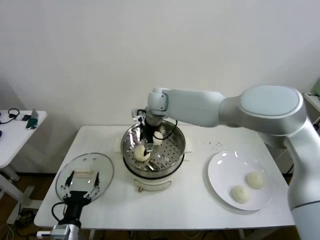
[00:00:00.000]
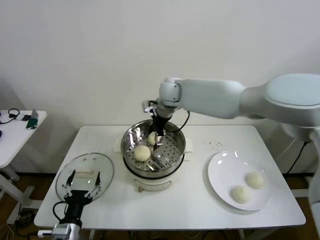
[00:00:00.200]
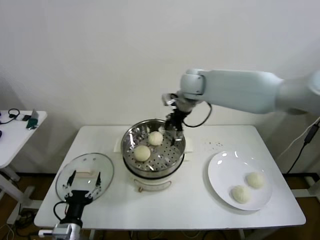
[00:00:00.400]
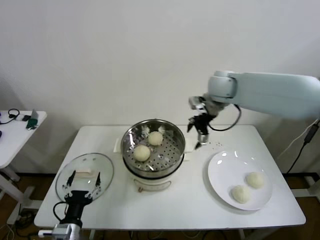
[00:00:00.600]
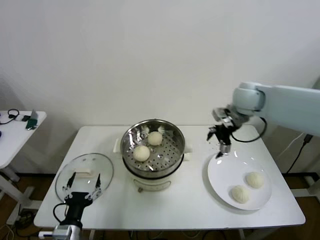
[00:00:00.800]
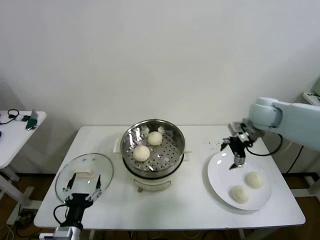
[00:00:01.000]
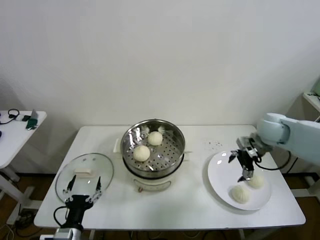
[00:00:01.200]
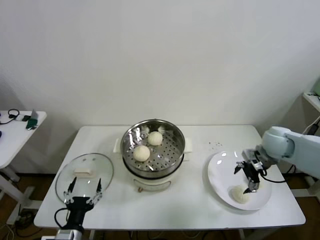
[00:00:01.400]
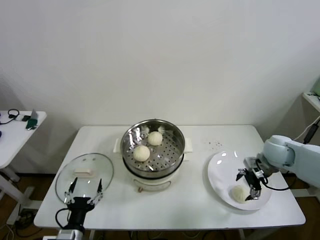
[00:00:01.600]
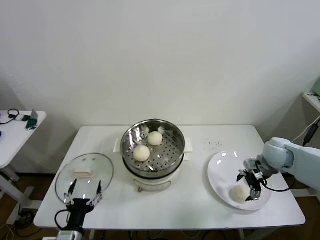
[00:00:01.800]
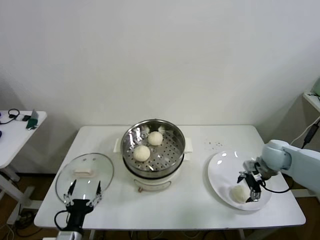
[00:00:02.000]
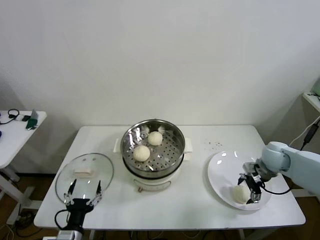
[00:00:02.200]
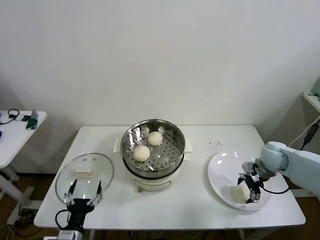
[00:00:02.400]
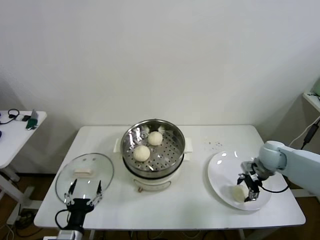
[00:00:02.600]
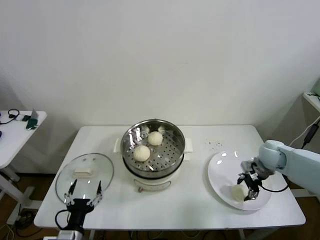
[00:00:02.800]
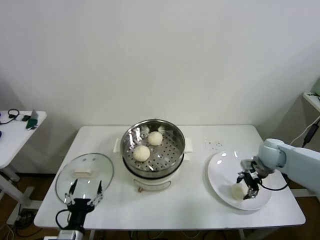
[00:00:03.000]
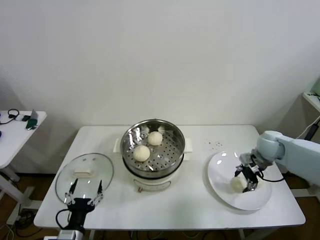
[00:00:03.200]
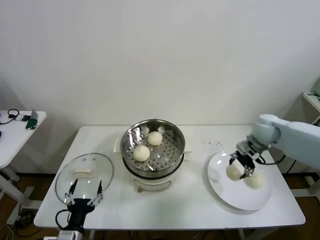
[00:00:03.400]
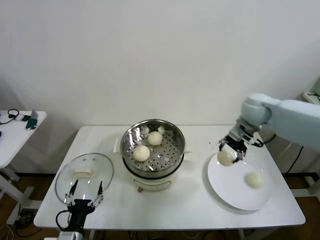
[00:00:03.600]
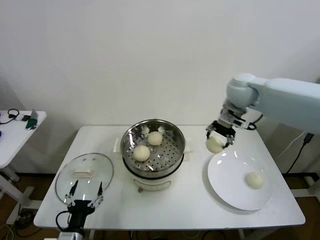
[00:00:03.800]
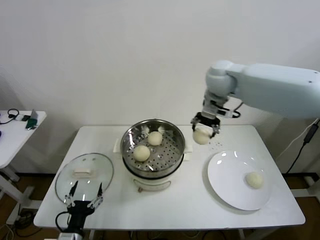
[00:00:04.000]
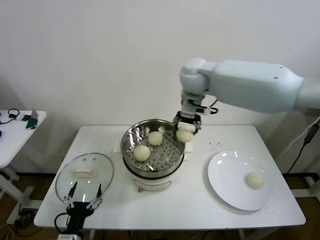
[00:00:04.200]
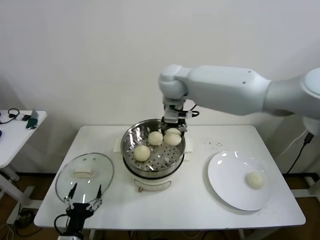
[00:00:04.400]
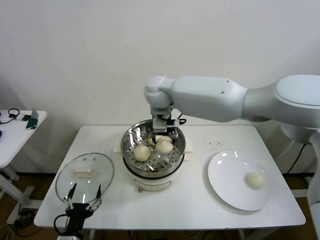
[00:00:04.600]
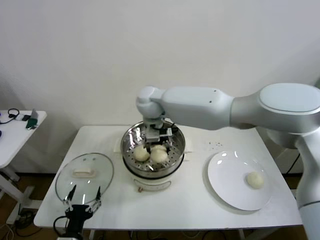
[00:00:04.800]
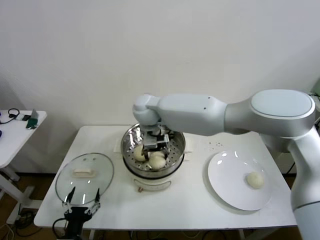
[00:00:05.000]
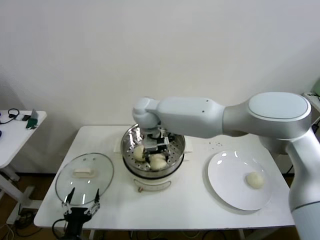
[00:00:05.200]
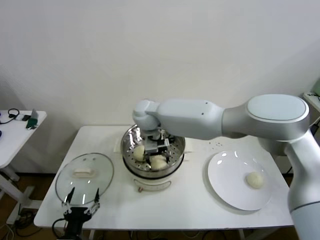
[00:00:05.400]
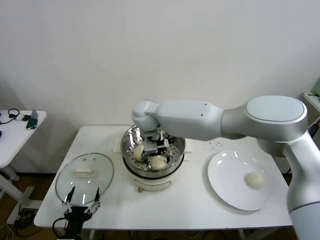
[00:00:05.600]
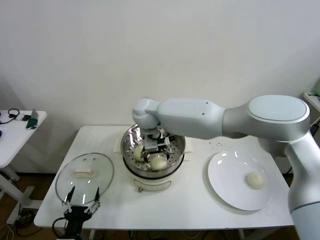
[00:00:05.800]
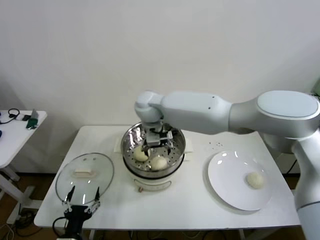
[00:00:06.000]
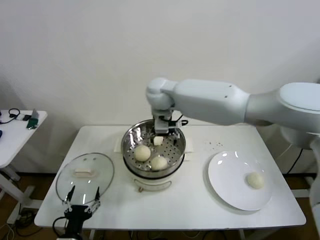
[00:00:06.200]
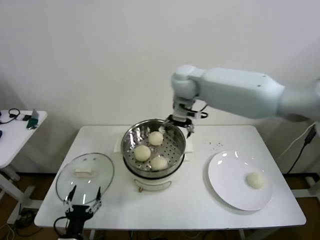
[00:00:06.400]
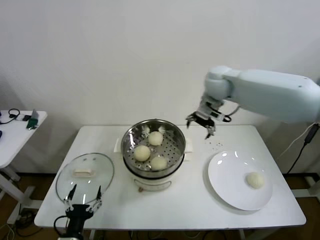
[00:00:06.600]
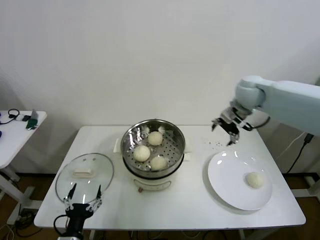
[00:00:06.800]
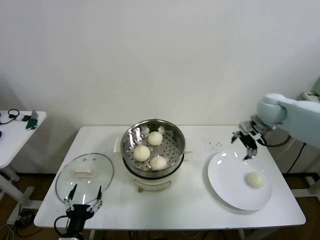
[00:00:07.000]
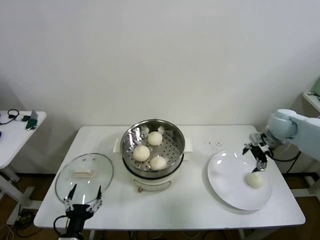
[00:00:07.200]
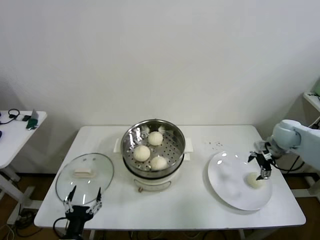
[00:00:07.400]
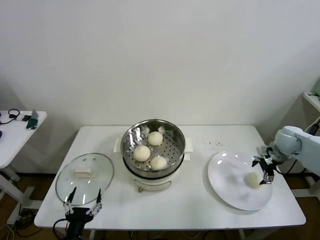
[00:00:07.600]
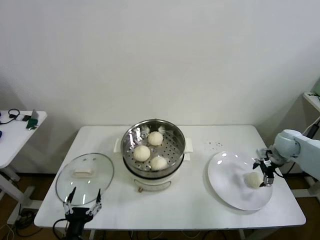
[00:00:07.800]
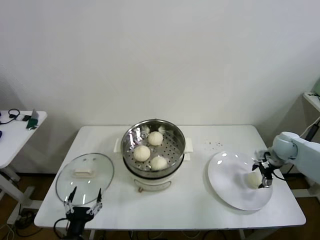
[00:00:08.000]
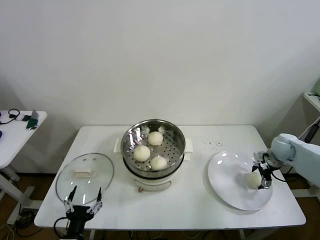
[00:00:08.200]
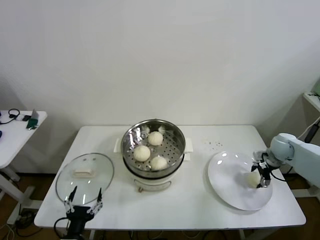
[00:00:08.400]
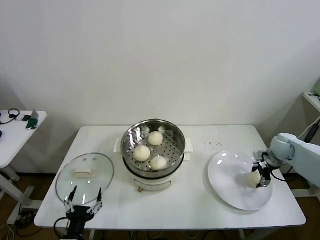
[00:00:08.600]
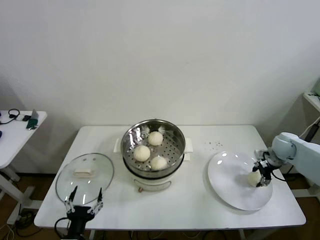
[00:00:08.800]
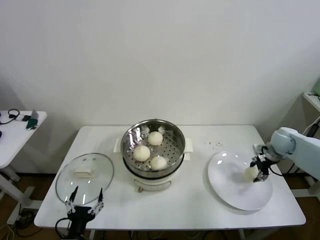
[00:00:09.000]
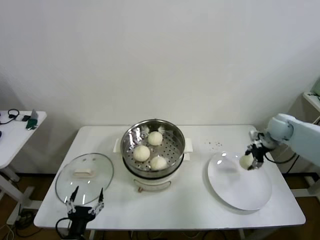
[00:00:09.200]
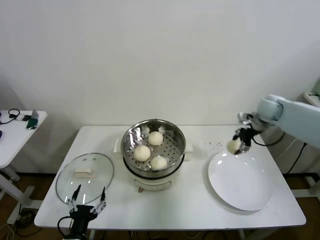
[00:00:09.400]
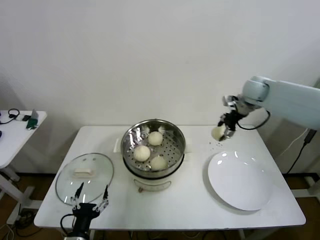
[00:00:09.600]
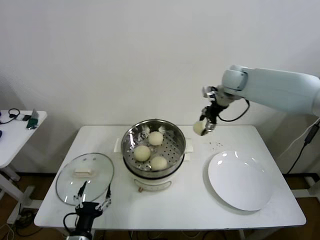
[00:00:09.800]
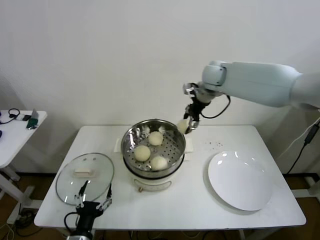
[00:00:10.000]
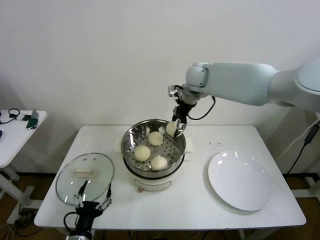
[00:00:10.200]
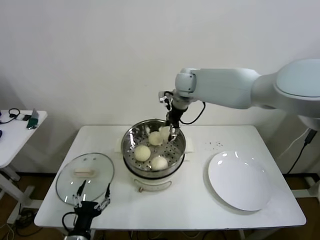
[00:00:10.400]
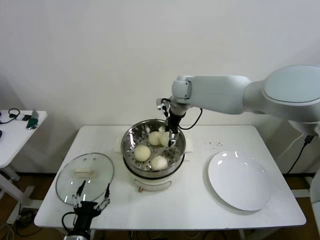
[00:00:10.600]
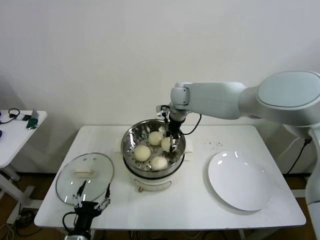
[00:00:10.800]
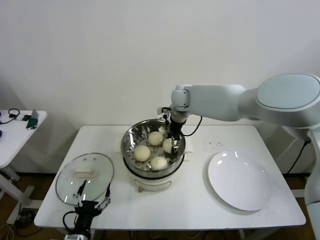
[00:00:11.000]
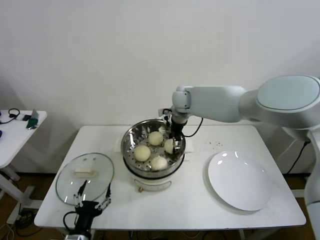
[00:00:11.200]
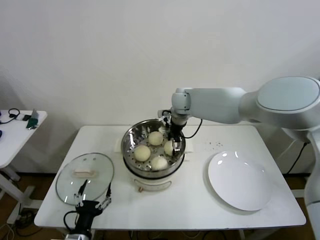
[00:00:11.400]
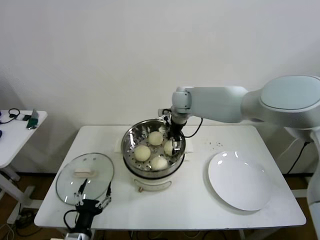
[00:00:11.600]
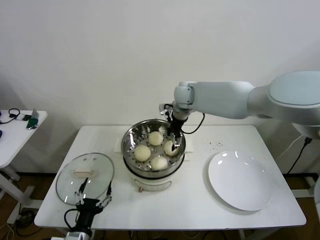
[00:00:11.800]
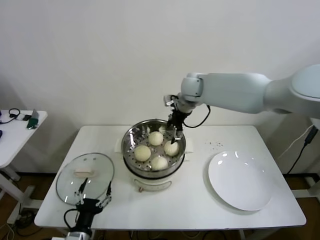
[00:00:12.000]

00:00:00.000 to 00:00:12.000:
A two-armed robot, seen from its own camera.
Step, 00:00:00.000 to 00:00:02.600: Grasp the baozi in the plate with right gripper.
Step, 00:00:03.000 to 00:00:05.400: Place the baozi on the steamer with right gripper.
Step, 00:00:05.800 to 00:00:08.600: Grasp the baozi in the plate with right gripper.
Step, 00:00:08.800 to 00:00:11.400: Place the baozi on the steamer with right gripper.
00:00:00.000 to 00:00:01.600: The right gripper moves to the right, approximately 40 cm.
00:00:01.600 to 00:00:03.000: The right gripper closes up.
00:00:03.000 to 00:00:04.400: The right gripper heads to the left and upward, covering roughly 40 cm.
00:00:04.400 to 00:00:06.000: The right gripper goes about 10 cm downward and to the left, and opens its fingers.
00:00:06.000 to 00:00:07.600: The right gripper shifts some 50 cm to the right.
00:00:07.600 to 00:00:09.000: The right gripper closes up.
00:00:09.000 to 00:00:10.400: The right gripper is displaced to the left and upward by about 40 cm.
00:00:10.400 to 00:00:12.000: The right gripper opens.

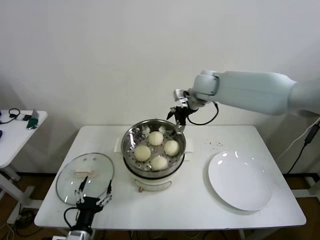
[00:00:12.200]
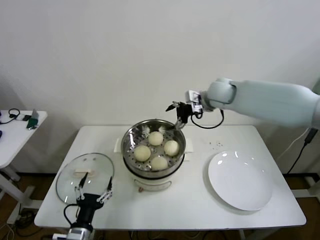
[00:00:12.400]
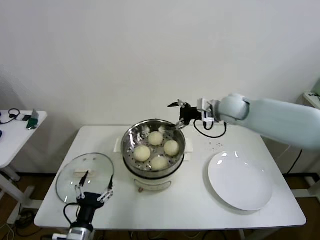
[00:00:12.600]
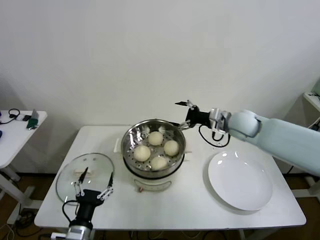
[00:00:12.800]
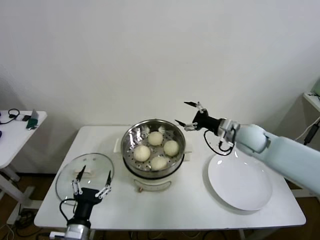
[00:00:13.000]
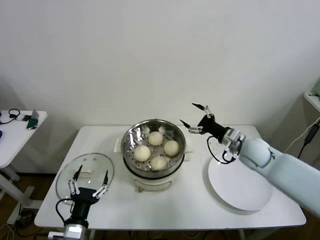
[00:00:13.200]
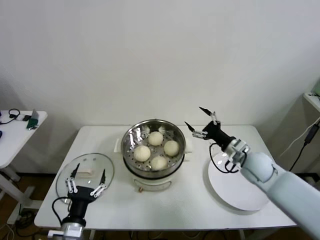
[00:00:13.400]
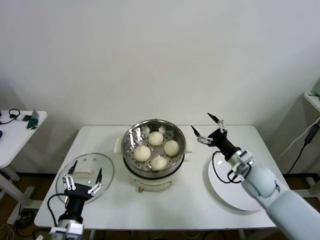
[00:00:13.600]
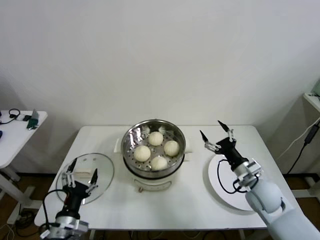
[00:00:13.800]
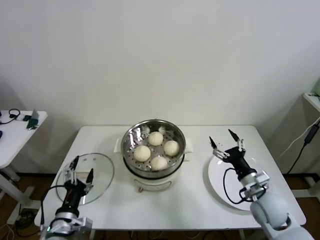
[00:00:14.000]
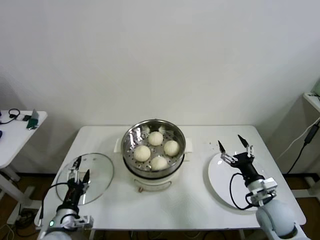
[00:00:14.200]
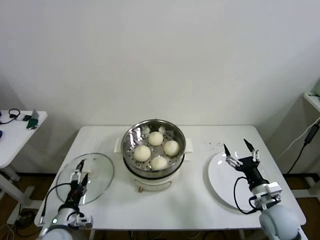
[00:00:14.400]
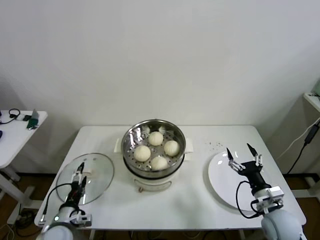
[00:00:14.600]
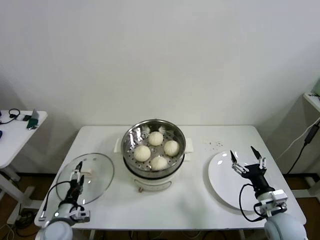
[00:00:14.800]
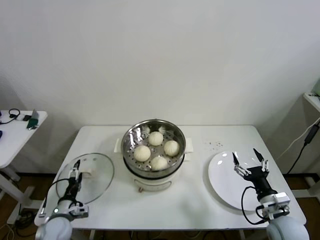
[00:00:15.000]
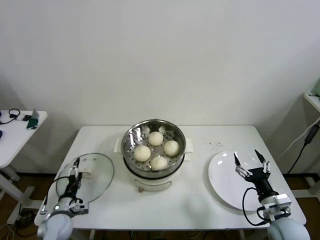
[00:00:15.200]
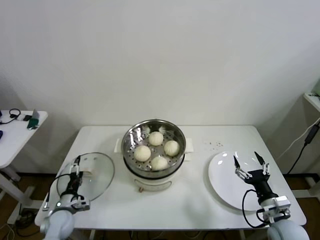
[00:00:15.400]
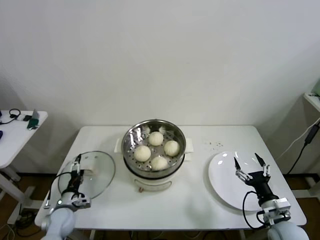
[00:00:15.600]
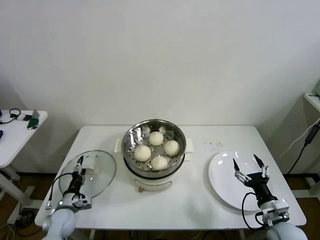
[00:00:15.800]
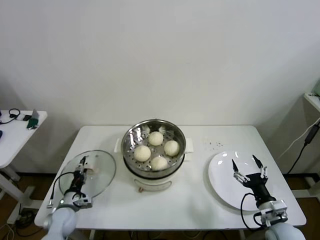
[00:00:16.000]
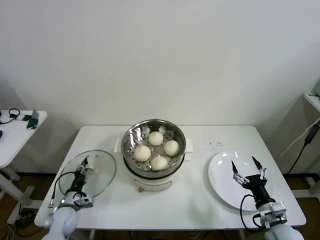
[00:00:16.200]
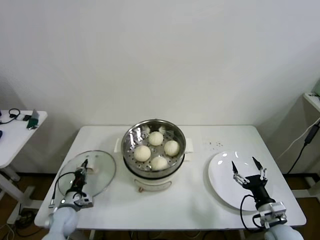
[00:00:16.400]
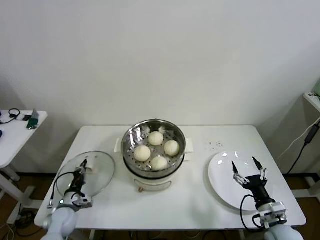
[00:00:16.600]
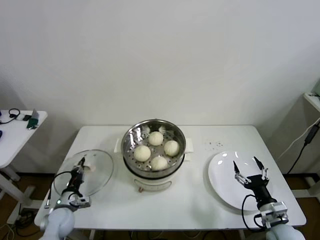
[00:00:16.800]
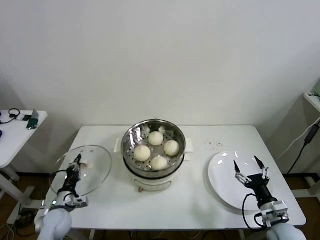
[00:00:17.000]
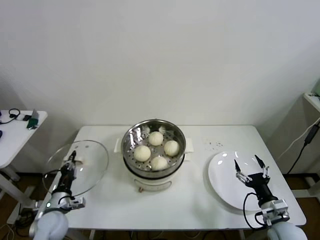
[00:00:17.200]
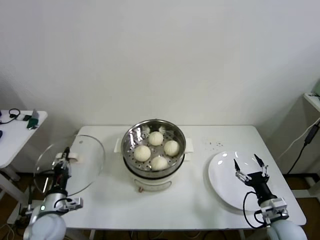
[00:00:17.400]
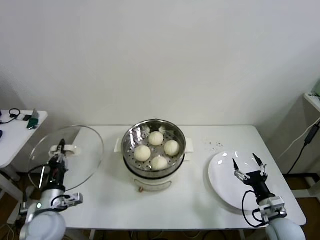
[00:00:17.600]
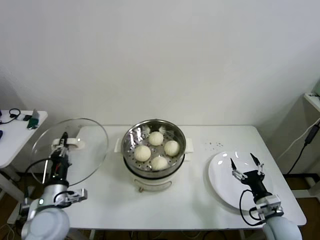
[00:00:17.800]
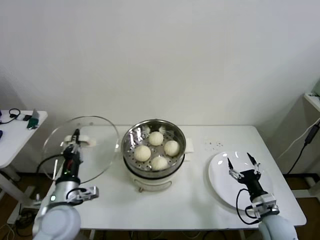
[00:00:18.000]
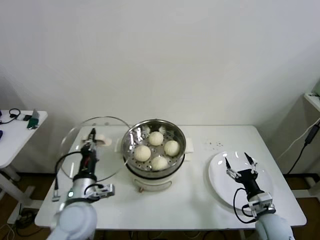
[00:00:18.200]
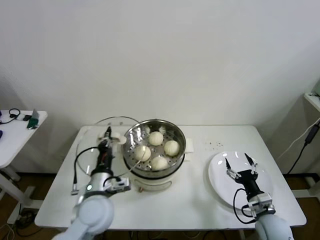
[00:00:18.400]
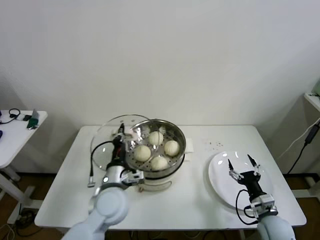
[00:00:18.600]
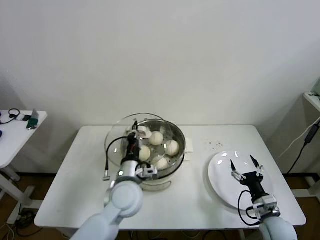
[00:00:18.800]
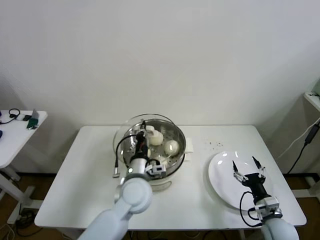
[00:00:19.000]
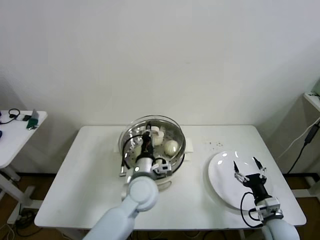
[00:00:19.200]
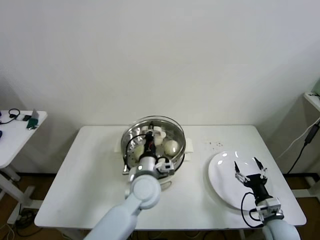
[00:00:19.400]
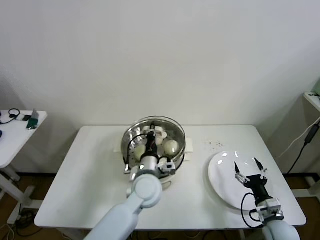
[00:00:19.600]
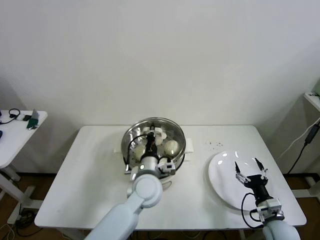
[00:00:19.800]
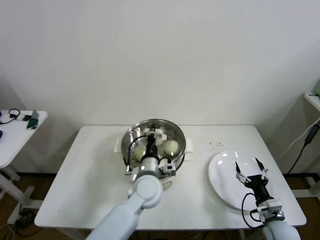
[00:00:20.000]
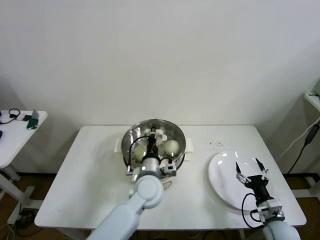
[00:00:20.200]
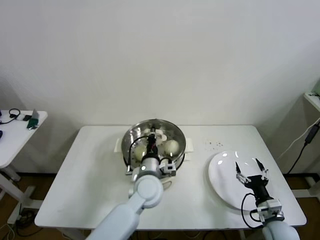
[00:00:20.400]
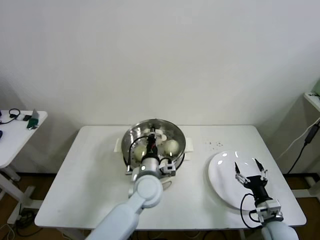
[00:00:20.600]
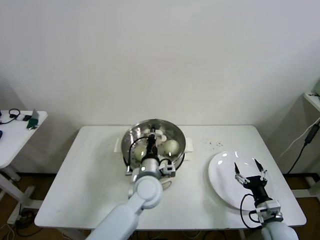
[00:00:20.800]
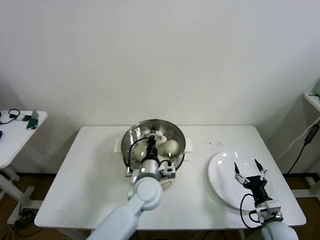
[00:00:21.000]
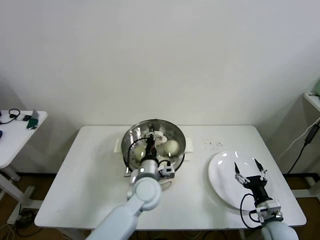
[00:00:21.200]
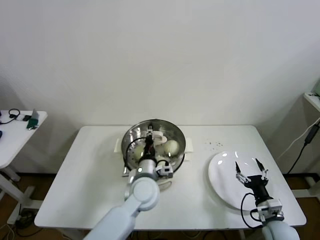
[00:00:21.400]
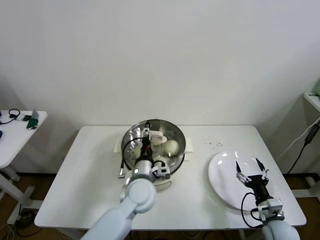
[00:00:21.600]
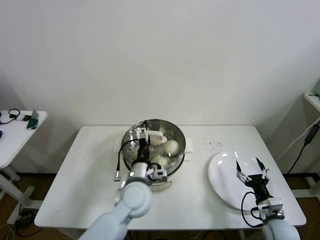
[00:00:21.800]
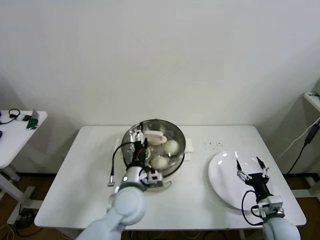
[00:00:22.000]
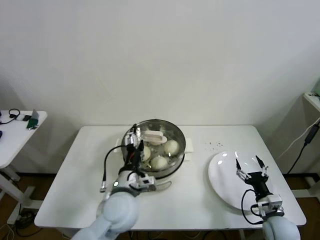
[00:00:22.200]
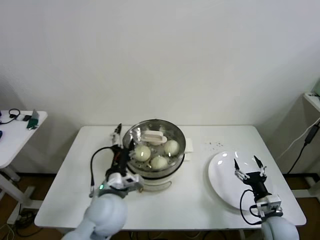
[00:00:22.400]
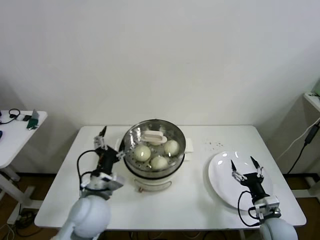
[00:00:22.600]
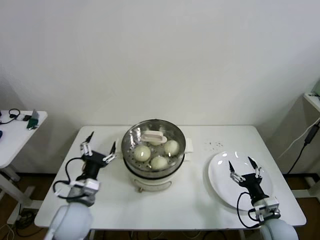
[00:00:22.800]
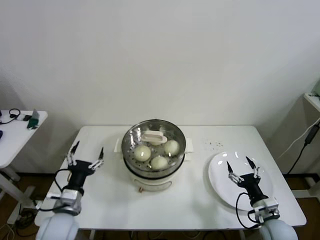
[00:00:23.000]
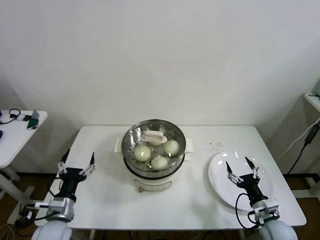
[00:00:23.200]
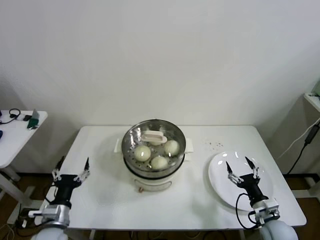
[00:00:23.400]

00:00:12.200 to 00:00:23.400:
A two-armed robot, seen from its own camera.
Step, 00:00:12.200 to 00:00:16.200: Grasp the pot lid with left gripper.
Step, 00:00:16.600 to 00:00:21.000: Place the pot lid on the steamer with left gripper.
00:00:12.200 to 00:00:13.800: The right gripper shifts approximately 40 cm backward, downward and to the right. Meanwhile the left gripper travels upward by about 5 cm.
00:00:13.800 to 00:00:15.400: The left gripper travels downward, forward and to the left by some 20 cm, while the right gripper moves backward, downward and to the right, some 15 cm.
00:00:15.400 to 00:00:17.000: The left gripper closes up.
00:00:17.000 to 00:00:18.600: The left gripper goes about 30 cm to the right and upward.
00:00:18.600 to 00:00:20.200: The left gripper shifts about 15 cm to the right and forward.
00:00:20.200 to 00:00:21.800: The left gripper opens.
00:00:21.800 to 00:00:23.400: The left gripper travels to the left and backward by approximately 25 cm.
